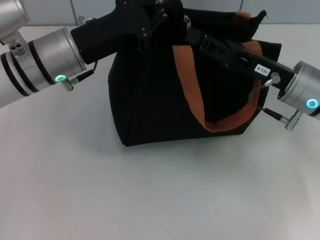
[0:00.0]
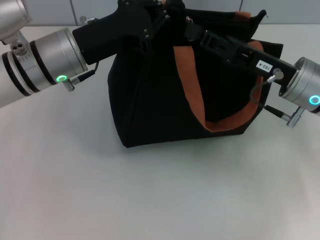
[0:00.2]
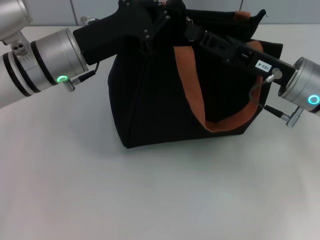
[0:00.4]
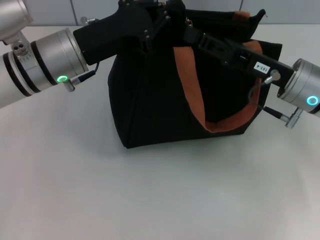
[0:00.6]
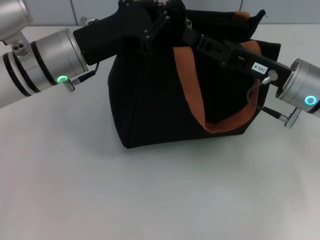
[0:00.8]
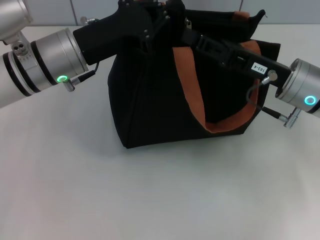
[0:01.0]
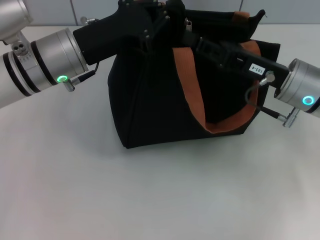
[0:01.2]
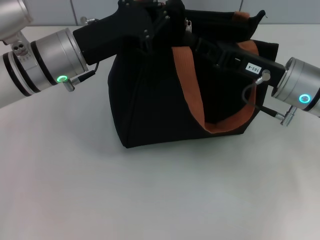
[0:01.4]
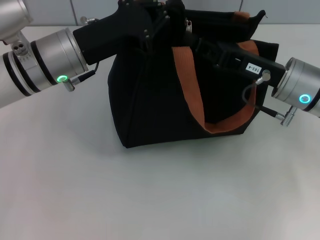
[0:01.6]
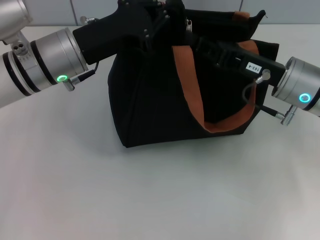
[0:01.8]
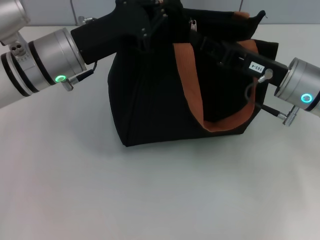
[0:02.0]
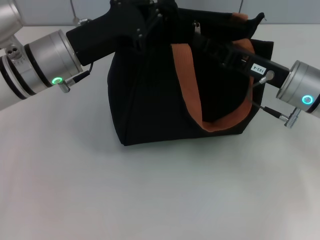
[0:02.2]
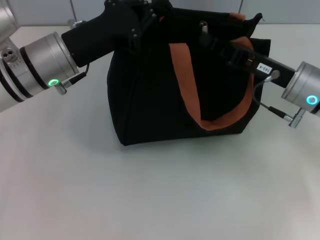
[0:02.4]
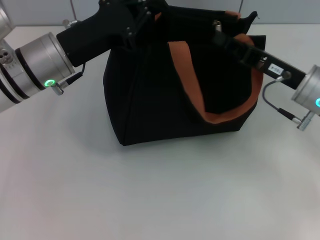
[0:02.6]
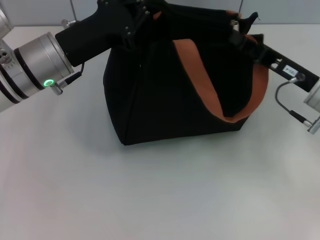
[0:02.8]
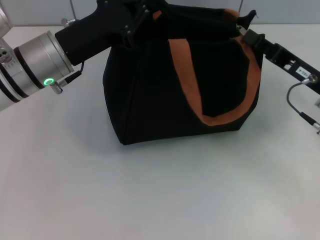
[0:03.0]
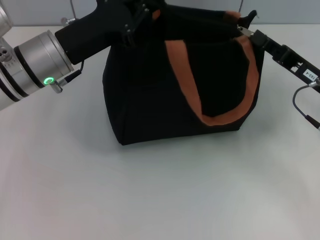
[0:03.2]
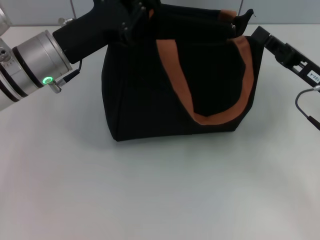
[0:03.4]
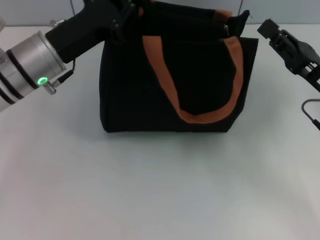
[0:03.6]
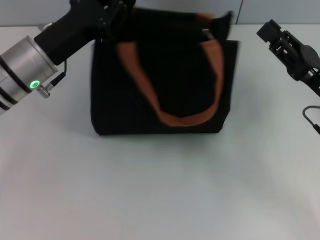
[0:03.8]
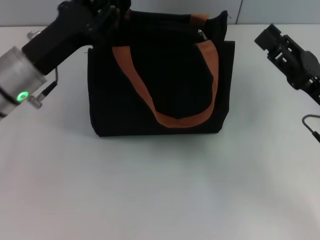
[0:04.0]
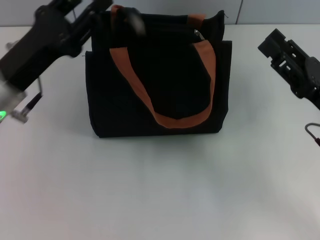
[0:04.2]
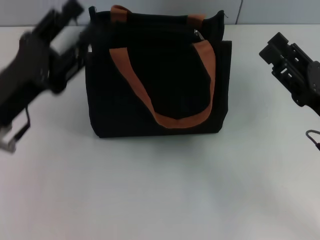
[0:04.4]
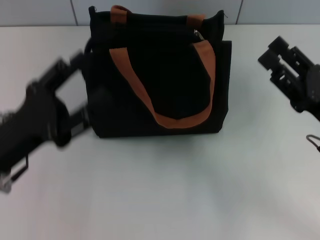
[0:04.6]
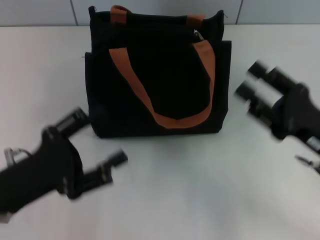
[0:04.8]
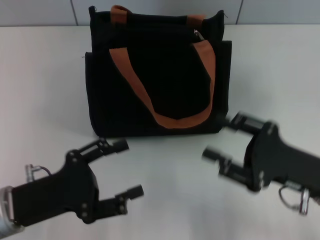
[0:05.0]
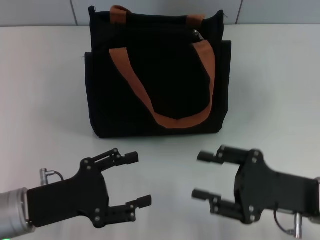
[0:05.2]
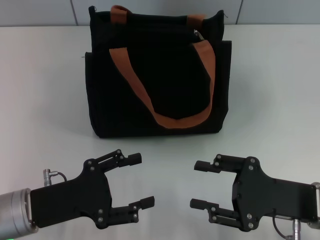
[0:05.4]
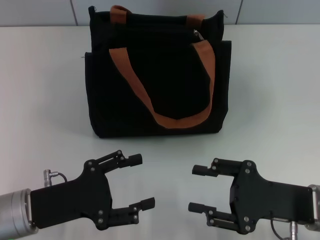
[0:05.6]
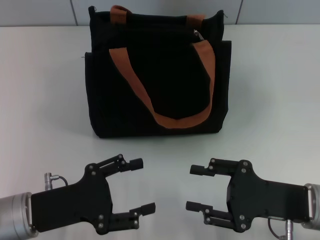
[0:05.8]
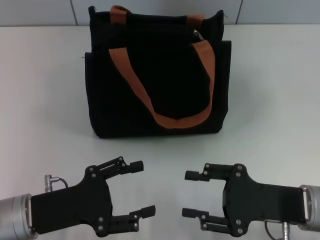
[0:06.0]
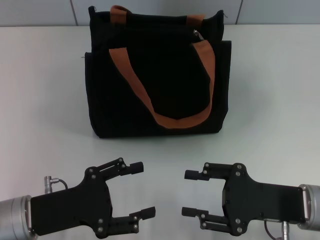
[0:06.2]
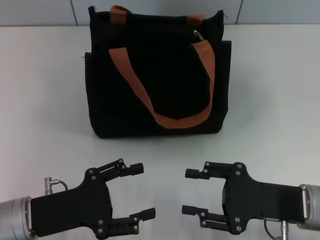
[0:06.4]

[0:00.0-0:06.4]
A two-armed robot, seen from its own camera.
Step, 0:00.0 to 0:03.2: Pull up the zipper with your right hand.
Step, 0:03.4 to 0:04.4: Grab the zipper with your left hand.
0:00.0 to 0:01.6: Both grippers stay about where they are.
0:01.6 to 0:03.2: The right gripper travels to the right by about 5 cm.
0:03.2 to 0:04.8: The left gripper goes approximately 20 cm backward, downward and to the left, and opens its fingers. Meanwhile the right gripper travels backward by roughly 10 cm, and opens up.
0:04.8 to 0:06.4: The right gripper moves roughly 5 cm.
